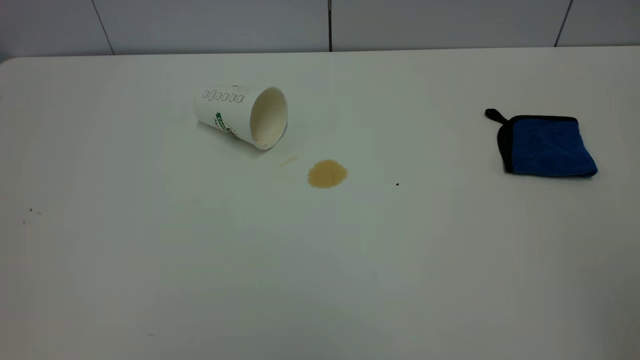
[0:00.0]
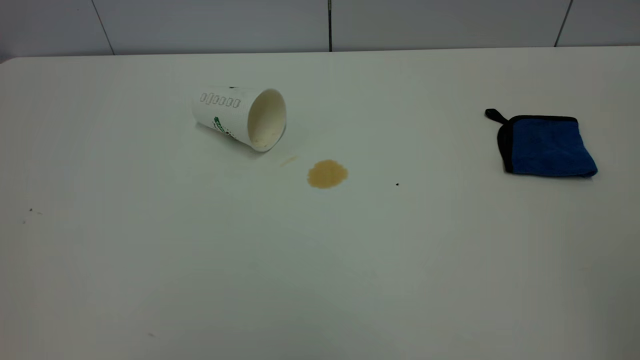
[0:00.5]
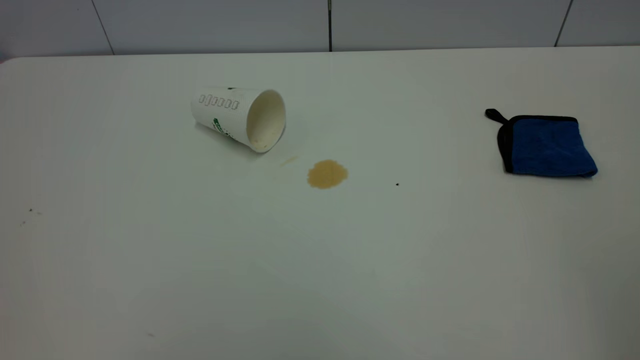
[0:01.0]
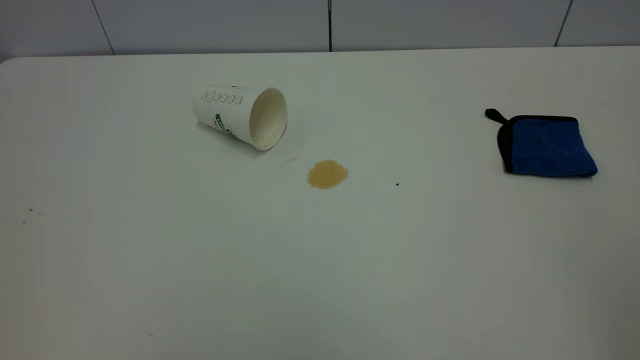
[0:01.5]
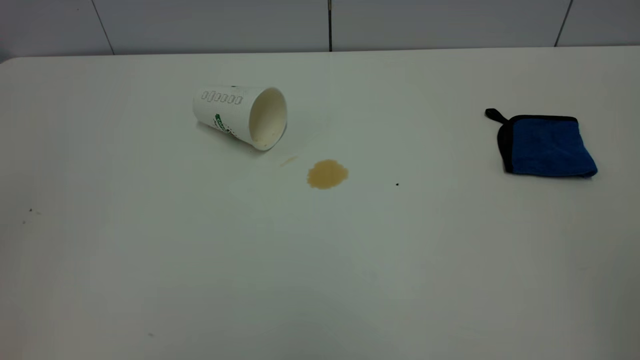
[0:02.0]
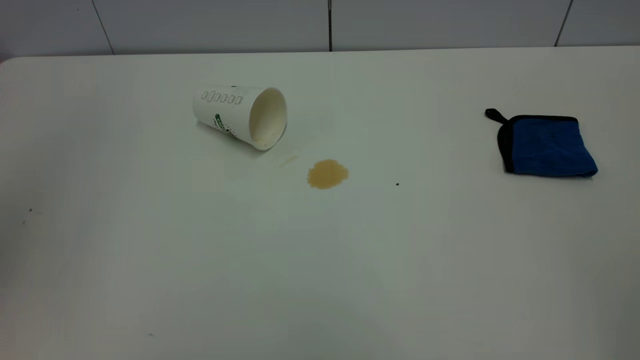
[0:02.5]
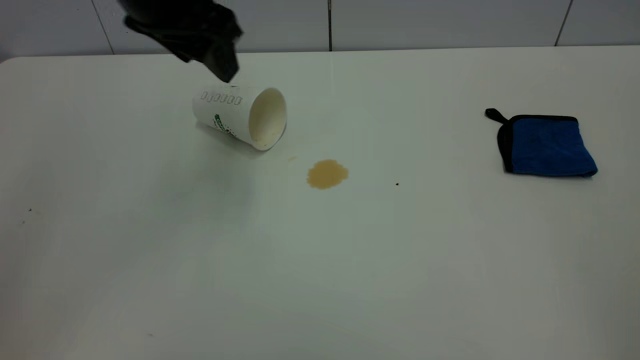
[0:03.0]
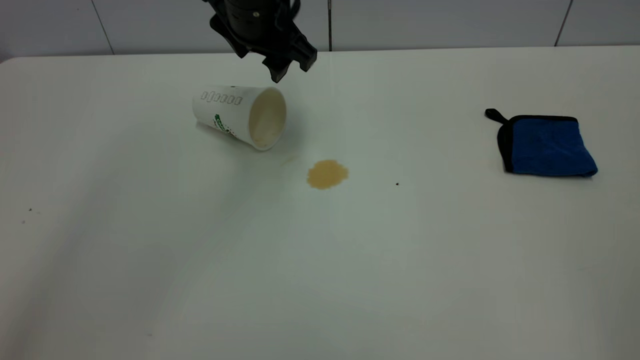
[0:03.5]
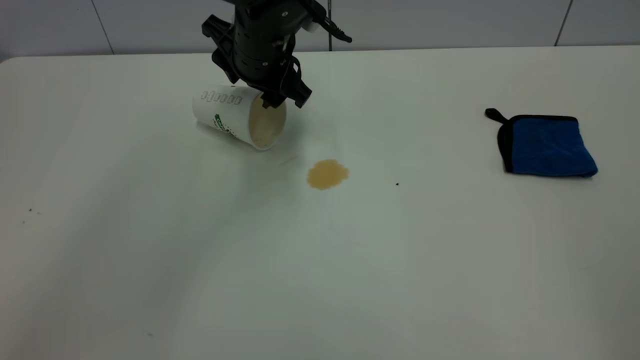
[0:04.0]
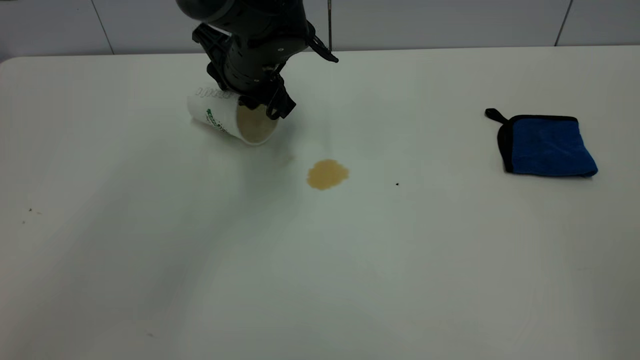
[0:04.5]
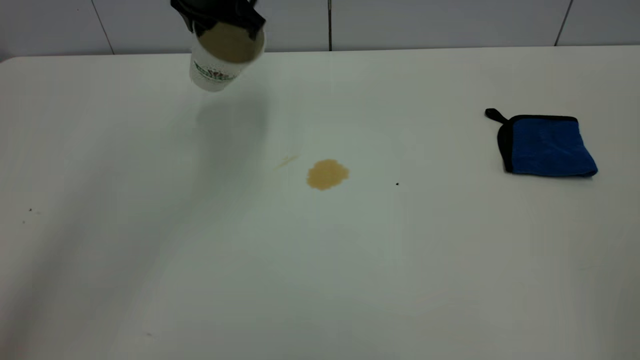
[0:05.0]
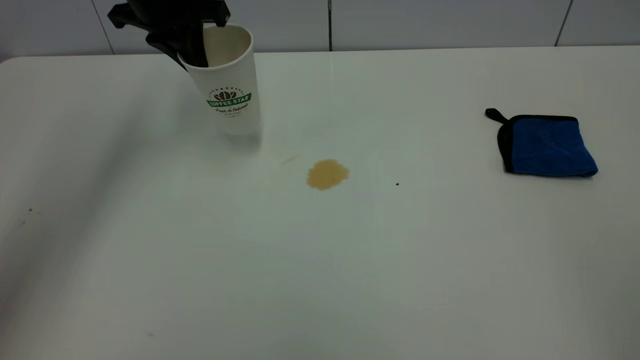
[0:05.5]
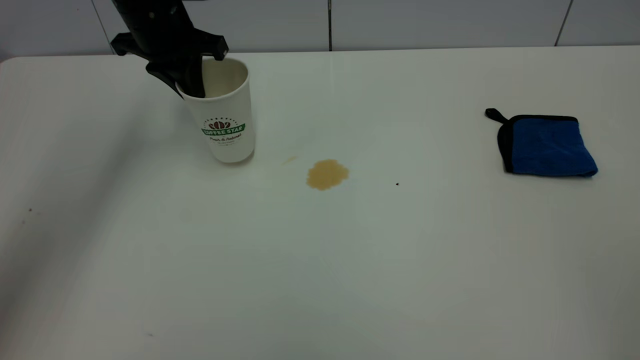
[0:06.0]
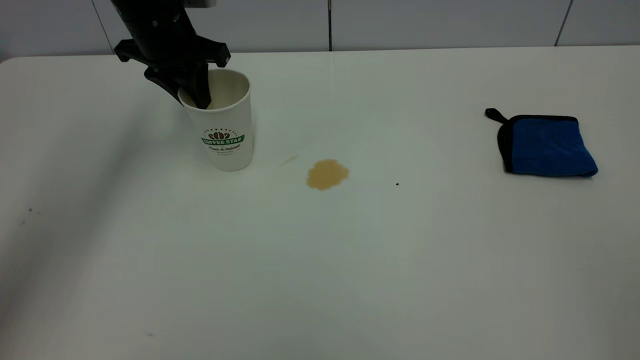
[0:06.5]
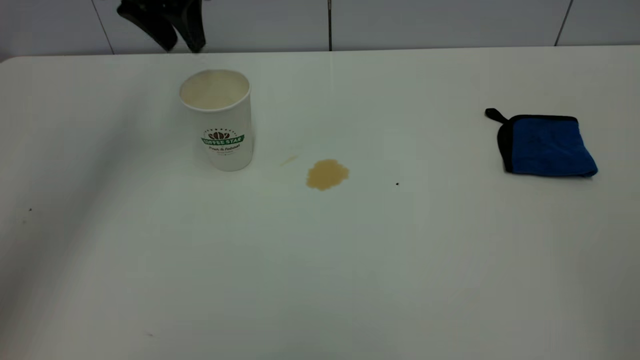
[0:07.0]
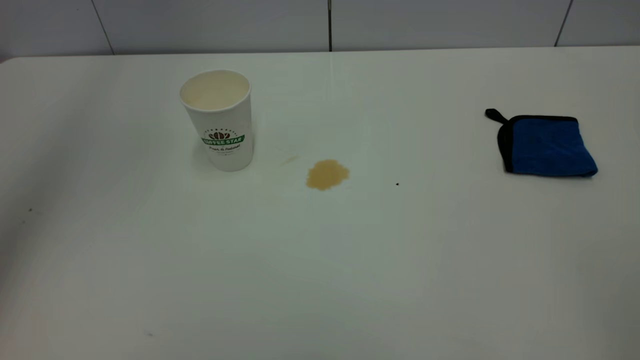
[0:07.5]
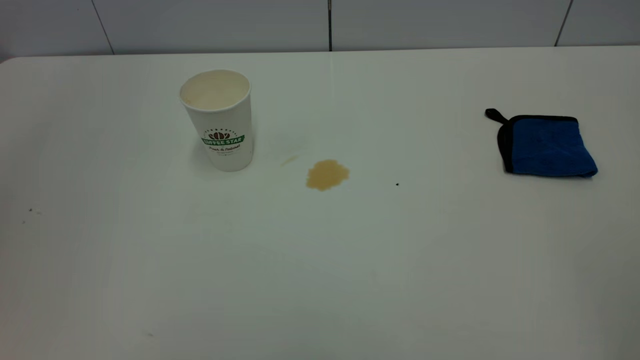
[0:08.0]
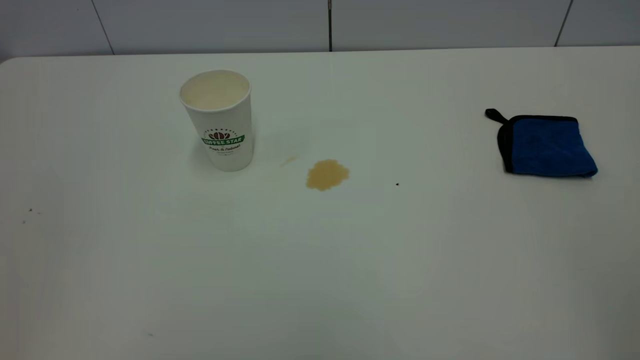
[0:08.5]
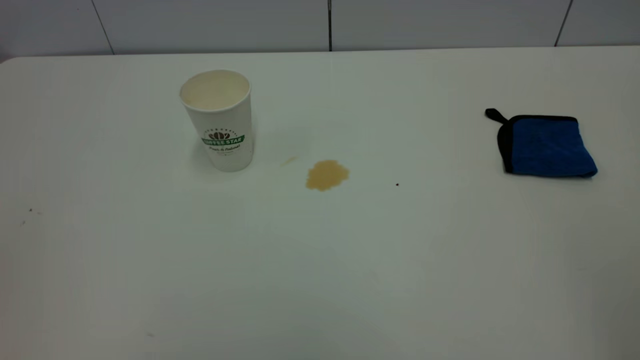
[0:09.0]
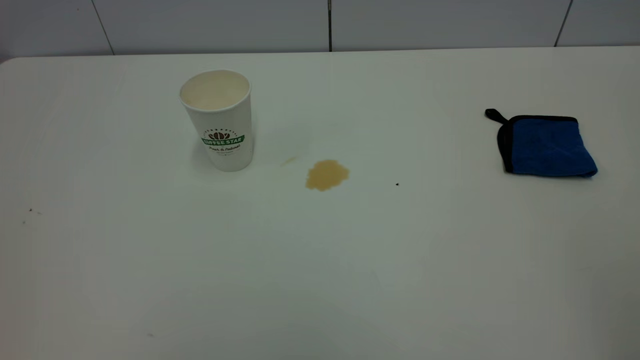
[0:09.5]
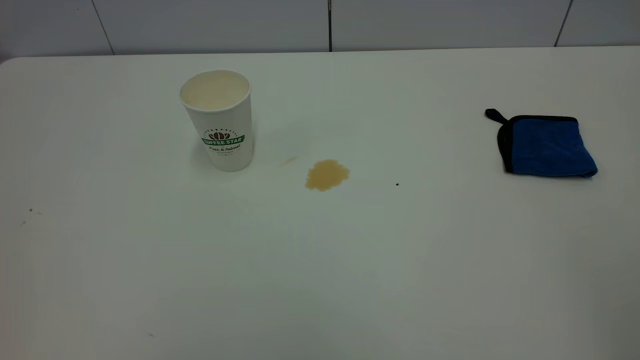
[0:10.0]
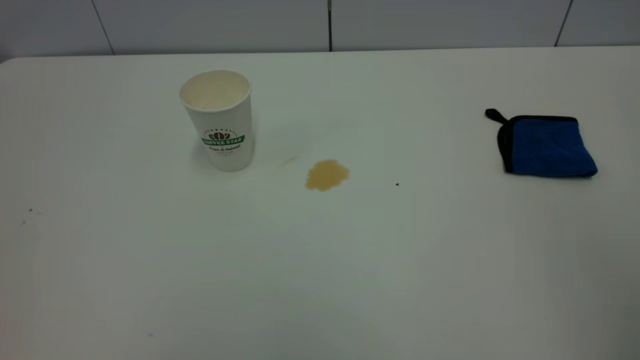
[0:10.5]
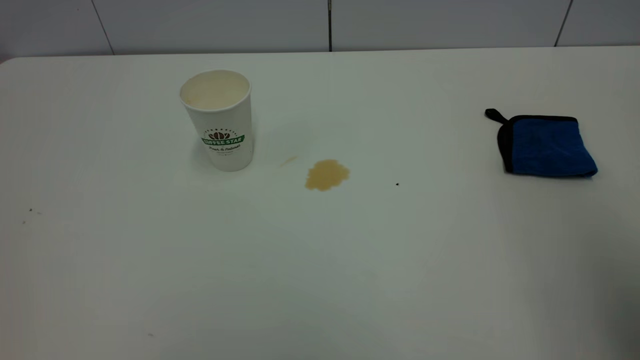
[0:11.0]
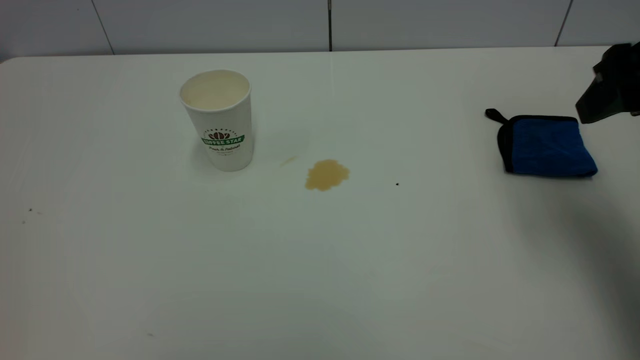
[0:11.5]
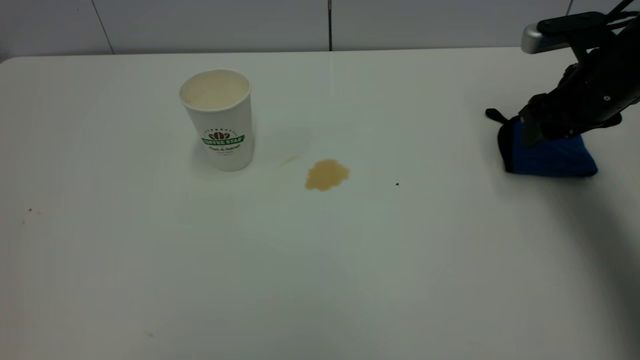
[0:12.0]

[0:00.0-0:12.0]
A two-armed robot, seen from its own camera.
Task of the whole recording: the left gripper pick up the fallen cup and place it upright, the right gripper grasp the blue rag and wipe the tea stain on the table, the right gripper put the blue rag back in its original position.
Step, 0:00.0 to 0:06.5: Stand the paper cup upright.
0:02.0 to 0:04.0: The left gripper shifts some 50 cm forward, to the right and downward.
0:04.0 to 0:06.0: The left gripper travels to the left by some 15 cm, and closes up.
0:06.0 to 0:08.0: The left gripper is displaced upward and backward by some 40 cm, and opens.
0:10.0 to 0:12.0: The right gripper goes about 50 cm forward and downward.

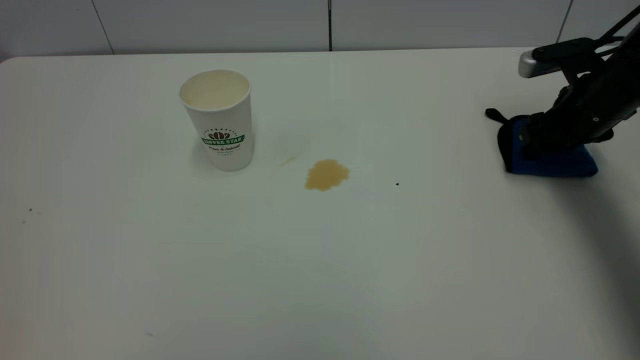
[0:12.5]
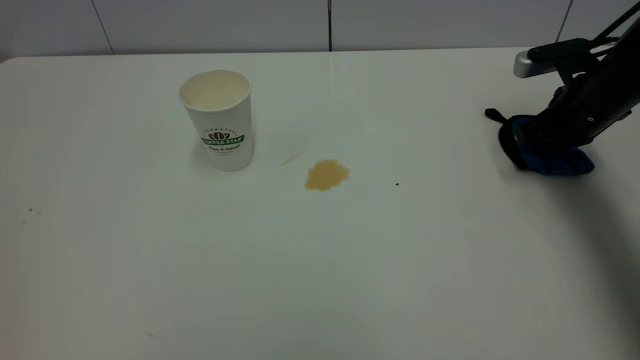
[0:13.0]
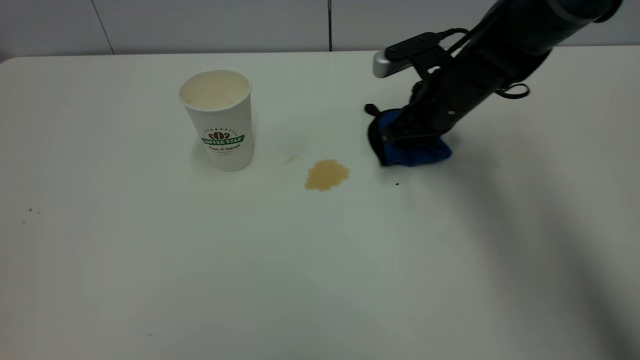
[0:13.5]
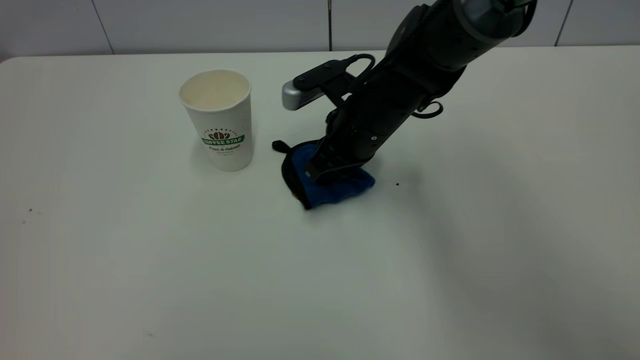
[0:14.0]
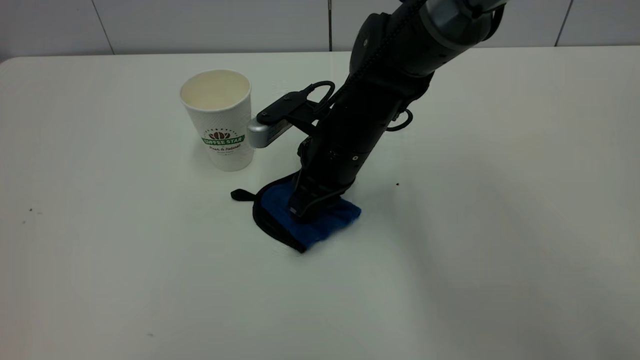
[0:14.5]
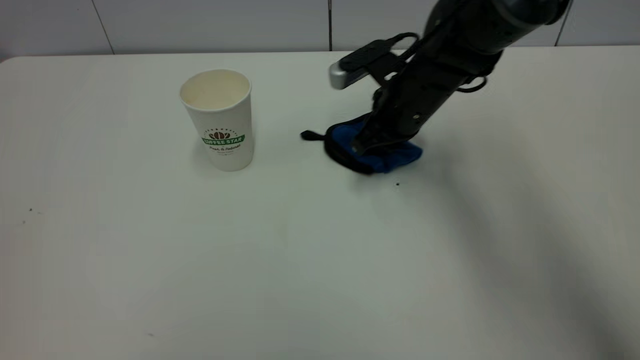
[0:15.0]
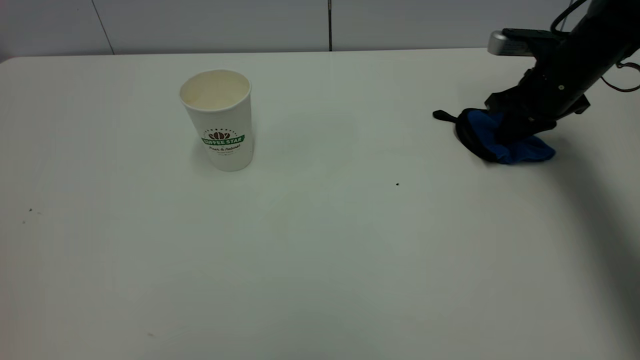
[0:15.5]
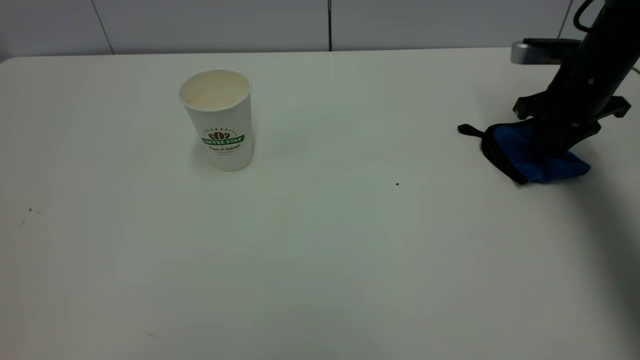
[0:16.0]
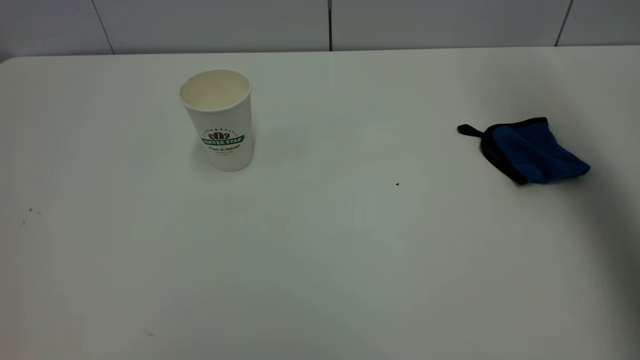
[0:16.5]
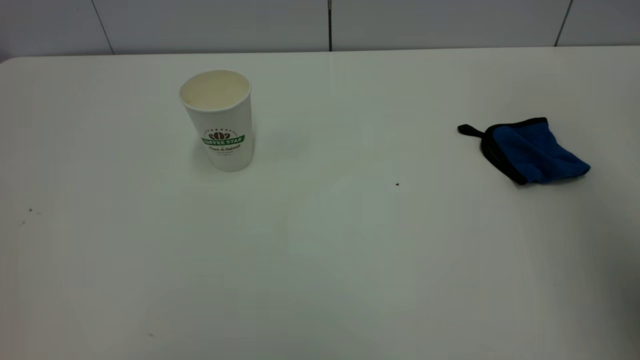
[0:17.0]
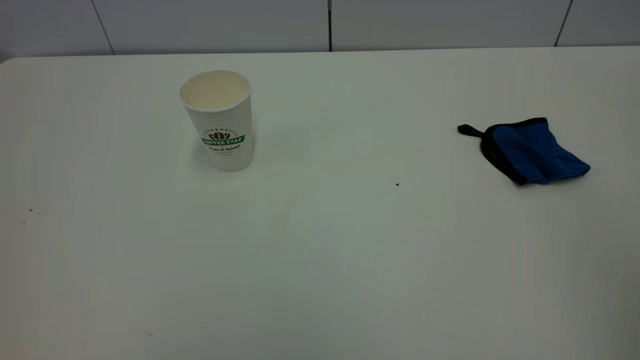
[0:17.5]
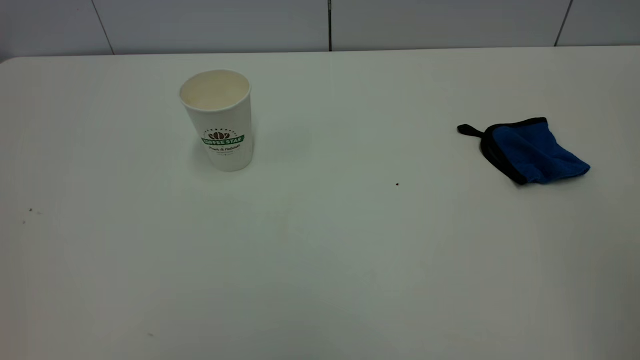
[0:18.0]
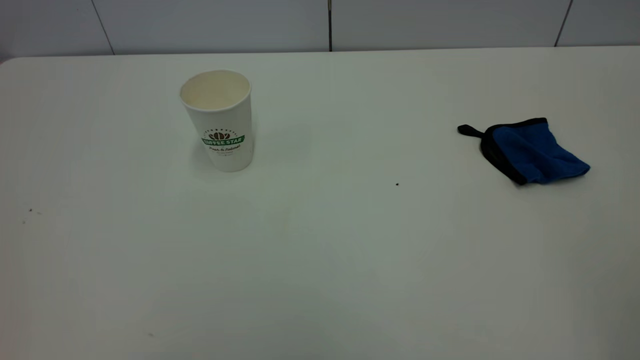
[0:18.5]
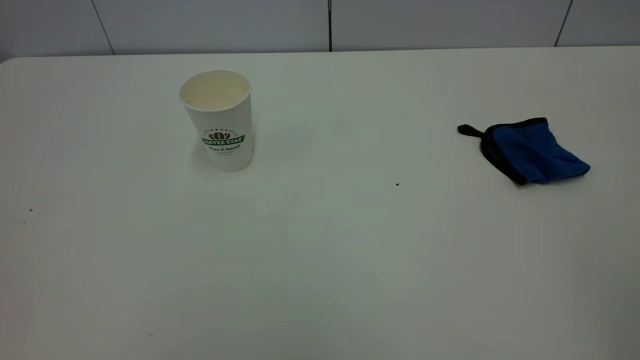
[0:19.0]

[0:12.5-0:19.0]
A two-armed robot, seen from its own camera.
Task of the whole recording: the left gripper pick up the fallen cup and place it upright, the right gripper grasp the blue rag and wipe the tea stain on the table, the right gripper put the blue rag back in its original position.
Step, 0:12.5 to 0:16.0: Wipe the stains off the table with a rag.
0:12.5 to 0:14.5: The right gripper shifts roughly 30 cm to the left, and closes its fingers.
0:14.5 to 0:17.0: The right gripper goes about 50 cm upward, to the right and backward, and opens.
0:17.0 to 0:19.0: The right gripper travels backward by some 20 cm.
